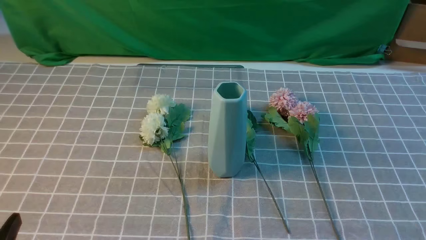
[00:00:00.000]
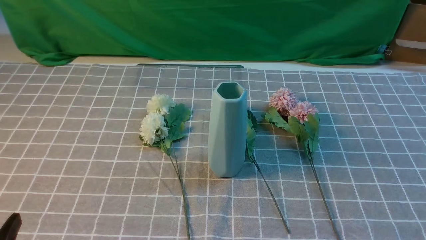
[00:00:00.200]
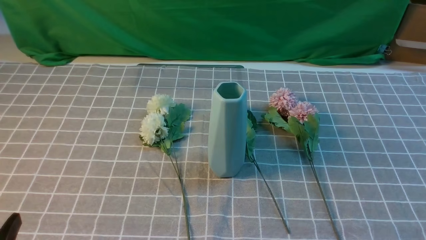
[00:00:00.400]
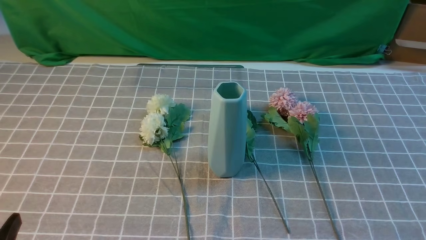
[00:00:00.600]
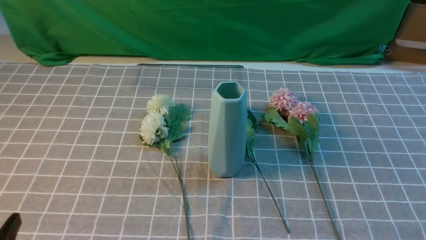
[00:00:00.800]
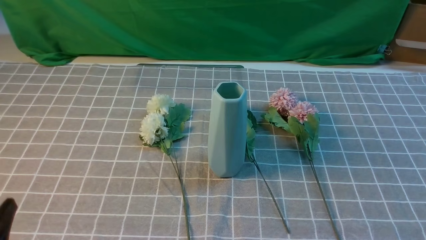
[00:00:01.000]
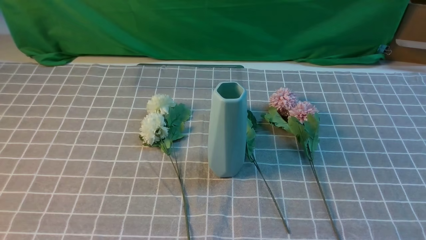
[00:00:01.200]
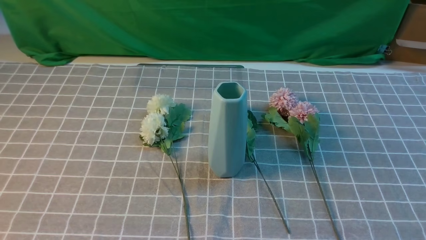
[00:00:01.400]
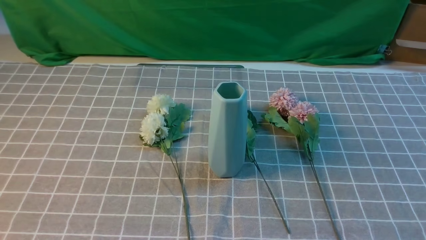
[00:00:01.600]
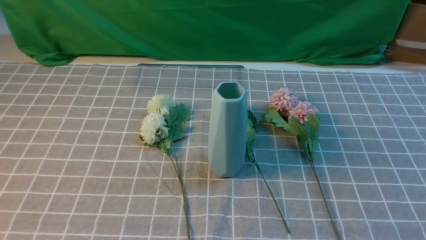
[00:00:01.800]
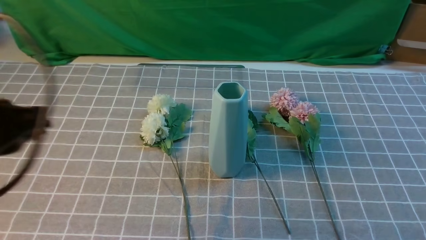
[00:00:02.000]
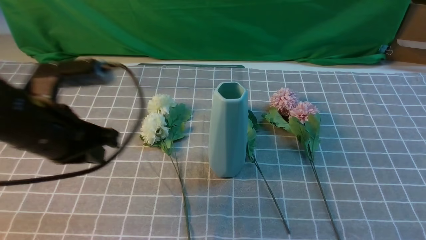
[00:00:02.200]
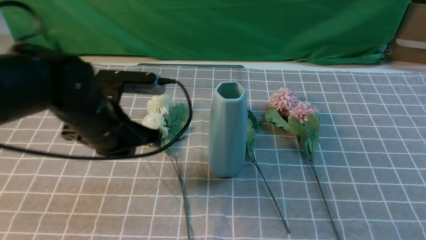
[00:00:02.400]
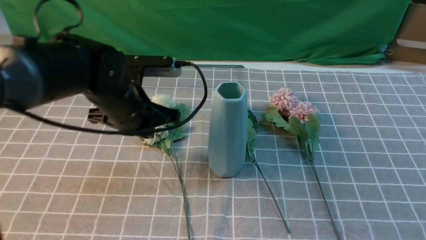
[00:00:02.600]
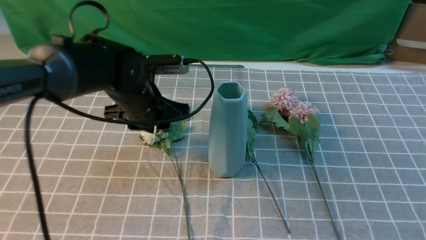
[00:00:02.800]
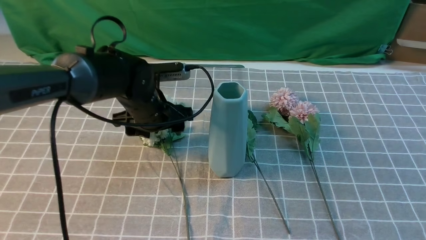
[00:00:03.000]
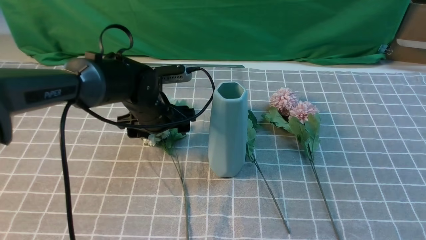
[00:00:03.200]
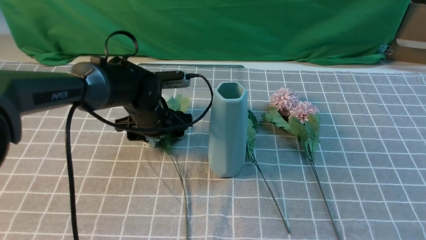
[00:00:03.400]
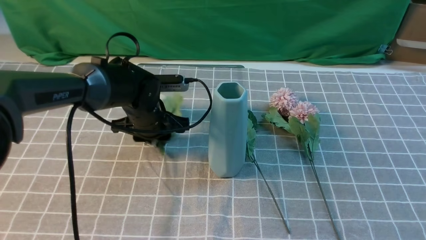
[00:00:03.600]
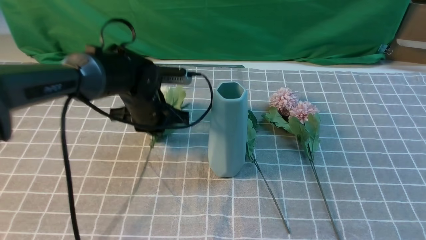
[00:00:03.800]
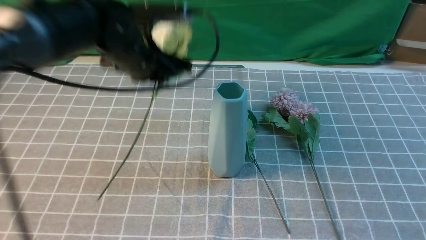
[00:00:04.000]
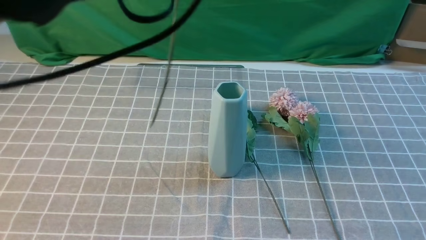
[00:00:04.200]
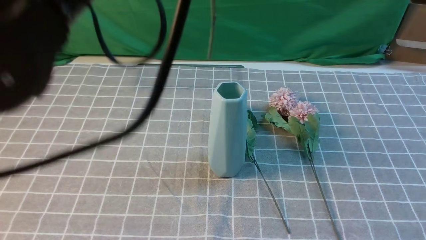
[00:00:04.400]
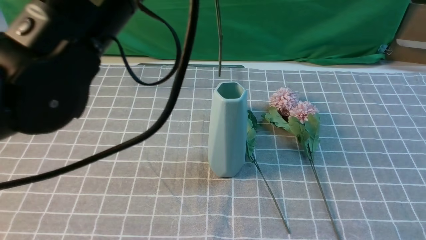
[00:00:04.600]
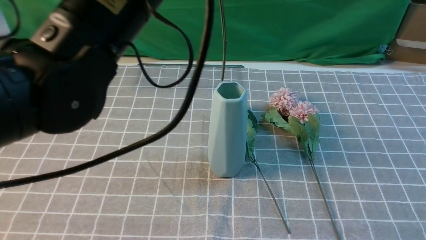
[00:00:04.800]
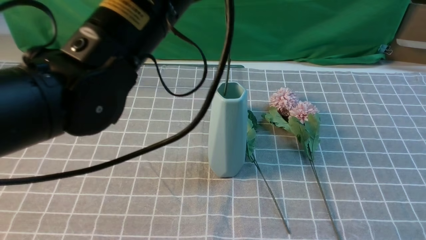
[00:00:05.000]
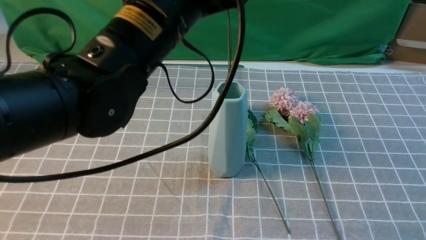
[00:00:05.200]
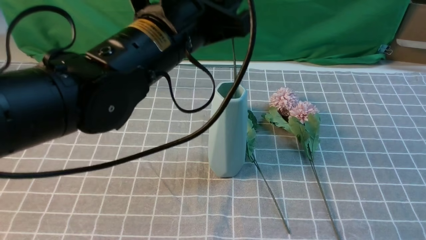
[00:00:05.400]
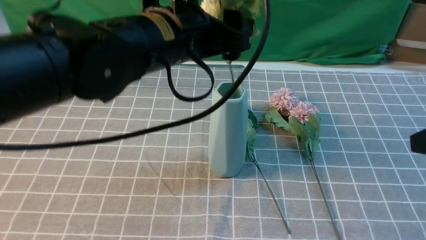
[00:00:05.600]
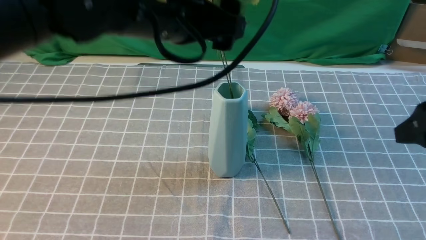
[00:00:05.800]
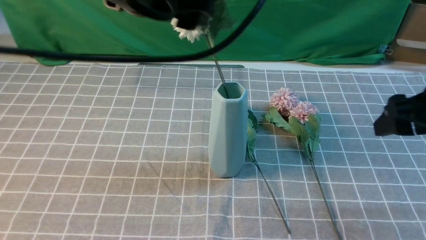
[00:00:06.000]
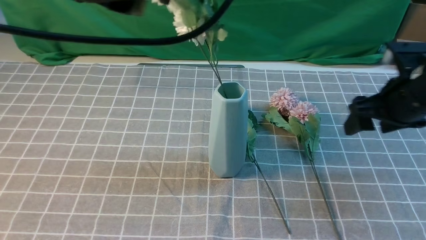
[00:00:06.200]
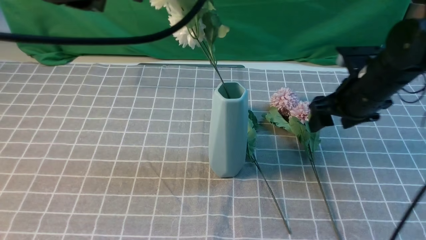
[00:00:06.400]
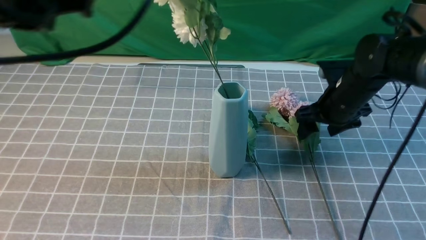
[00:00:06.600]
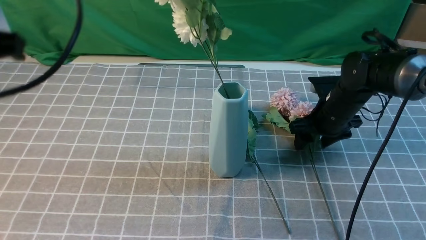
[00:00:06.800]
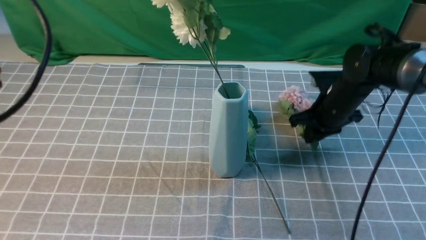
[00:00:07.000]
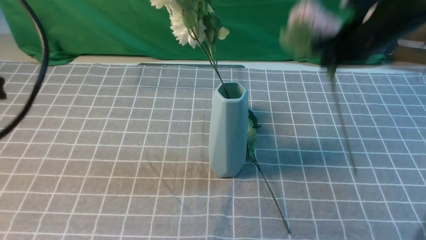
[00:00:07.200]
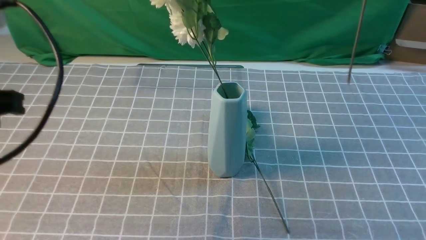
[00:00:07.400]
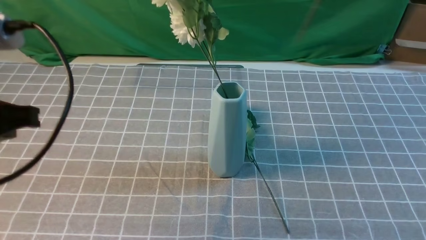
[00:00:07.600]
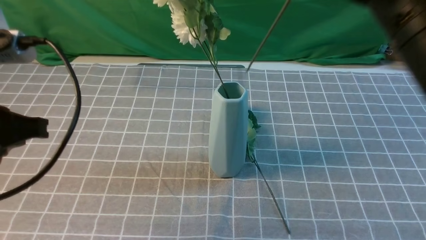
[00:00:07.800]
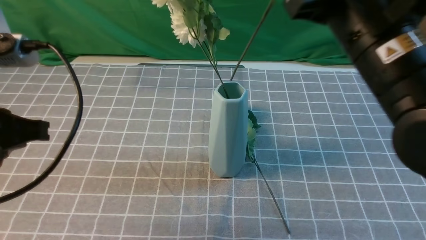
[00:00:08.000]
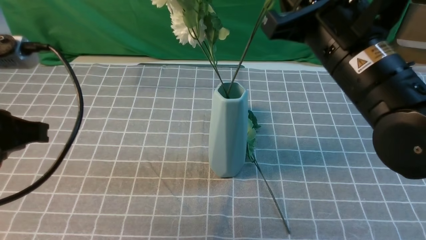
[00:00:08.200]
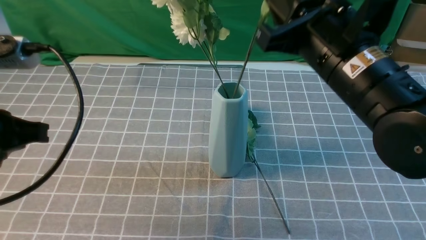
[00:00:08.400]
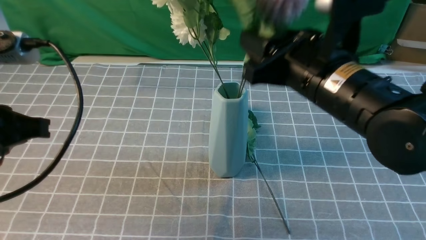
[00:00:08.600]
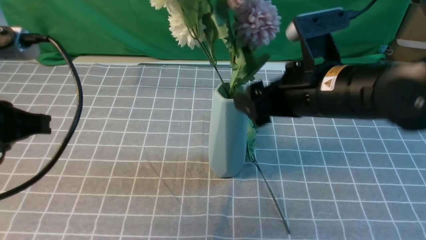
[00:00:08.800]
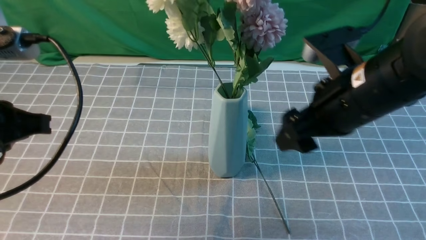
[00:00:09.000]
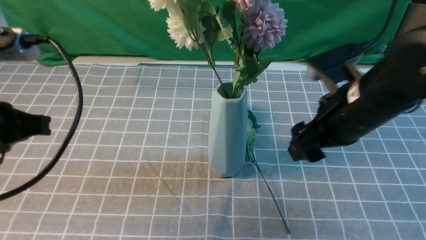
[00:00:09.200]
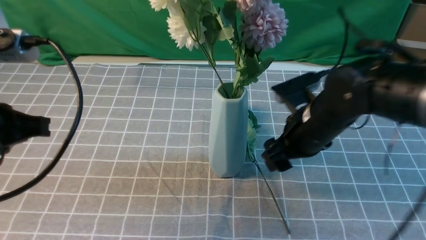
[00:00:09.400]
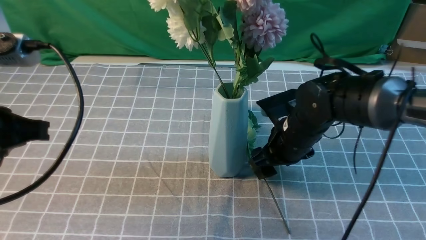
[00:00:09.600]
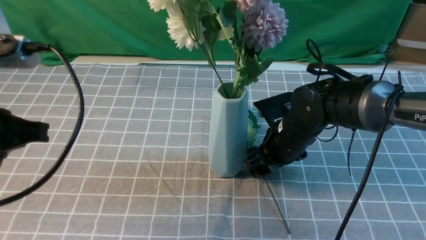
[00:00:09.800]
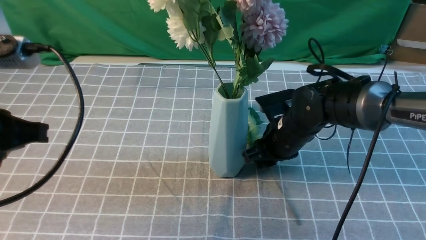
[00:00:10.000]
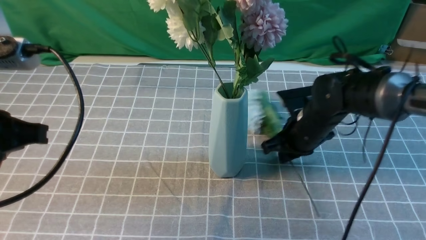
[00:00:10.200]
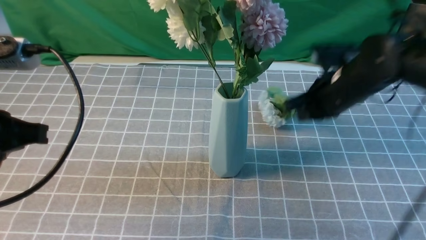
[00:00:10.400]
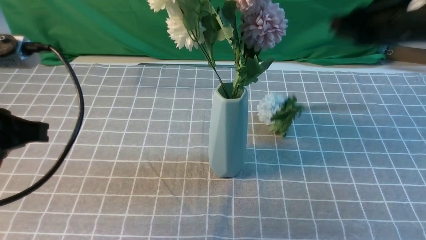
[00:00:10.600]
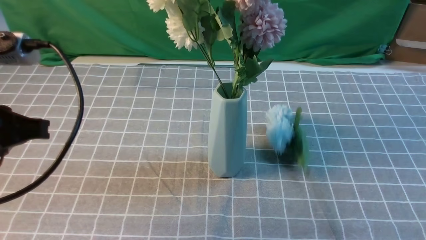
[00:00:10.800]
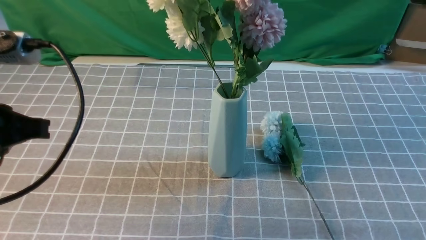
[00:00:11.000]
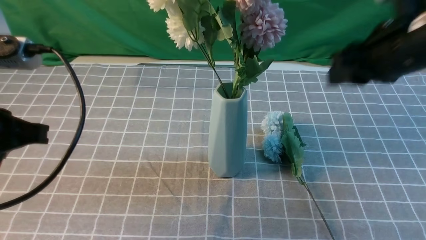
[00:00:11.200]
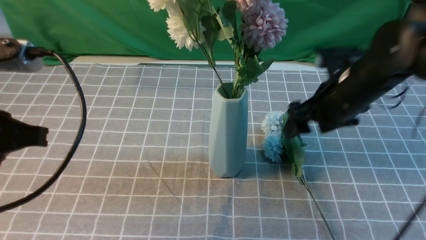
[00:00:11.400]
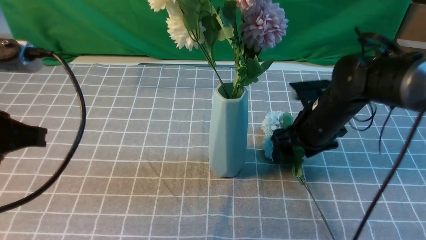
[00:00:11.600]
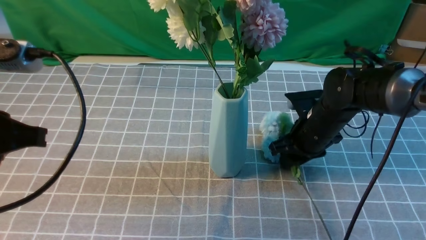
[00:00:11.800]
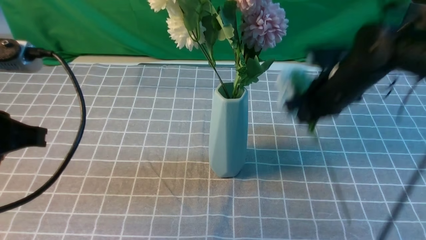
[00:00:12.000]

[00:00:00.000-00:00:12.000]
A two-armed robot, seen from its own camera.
Task of the whole recording: insert the flowers into the vase on the table with the grey tablecloth.
Step, 00:00:00.000 to 00:00:03.600: use the left arm to grab a bunch of fresh flowers.
Step, 00:00:03.800 to 00:00:06.000: use the left arm to insert the flowers into the vase.
Step, 00:00:06.200 to 00:00:06.800: use the right arm to grab a bunch of fresh flowers.
Step, 00:00:07.200 to 00:00:08.800: use the right arm to insert the flowers into the vase.
Step, 00:00:09.000 to 00:00:11.800: use the right arm to grab a bunch of fresh flowers.
00:00:01.600 to 00:00:03.000: The right gripper moves upward and forward, about 15 cm; the left gripper heads forward and to the right, covering some 35 cm, and opens.
00:00:03.000 to 00:00:04.400: The left gripper travels upward and backward by approximately 30 cm, and closes up.
00:00:04.400 to 00:00:06.000: The left gripper moves about 10 cm downward and comes back, and opens, while the right gripper is displaced forward by roughly 15 cm, and opens.
00:00:06.000 to 00:00:07.600: The right gripper shifts about 20 cm upward and to the left, and closes its fingers, while the left gripper goes roughly 20 cm to the left, backward and downward, and closes up.
00:00:07.600 to 00:00:09.000: The right gripper moves downward, about 15 cm, and opens up.
00:00:09.000 to 00:00:10.400: The right gripper heads forward, covering roughly 10 cm, travels downward and back again, approximately 15 cm each way, and closes.
00:00:10.400 to 00:00:12.000: The right gripper swings up and down, about 25 cm each way, with 2 reversals, and opens and closes again.

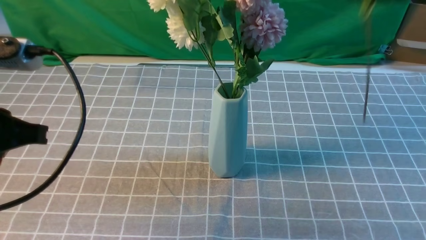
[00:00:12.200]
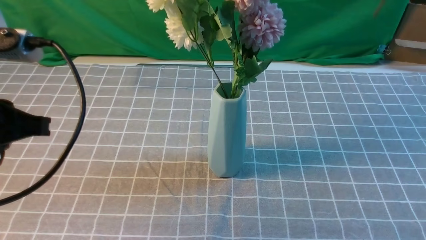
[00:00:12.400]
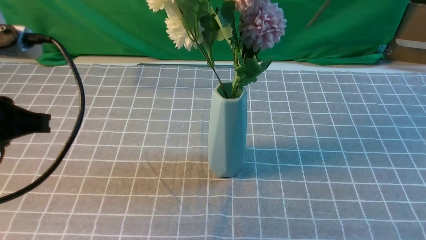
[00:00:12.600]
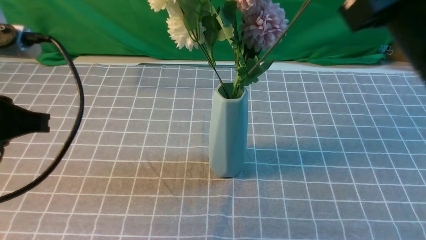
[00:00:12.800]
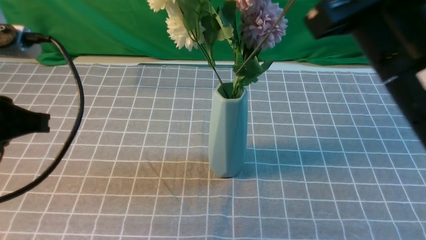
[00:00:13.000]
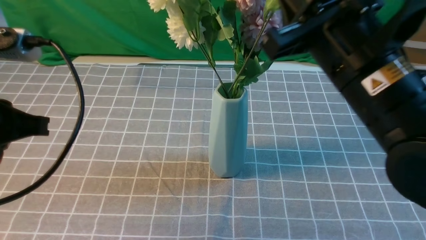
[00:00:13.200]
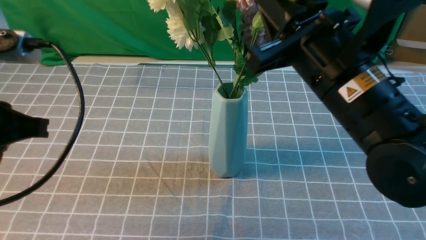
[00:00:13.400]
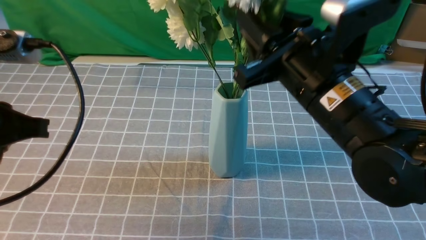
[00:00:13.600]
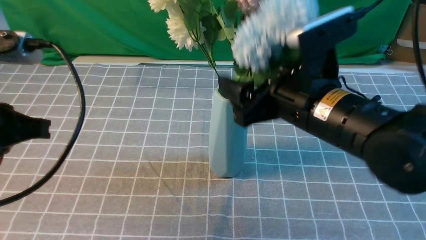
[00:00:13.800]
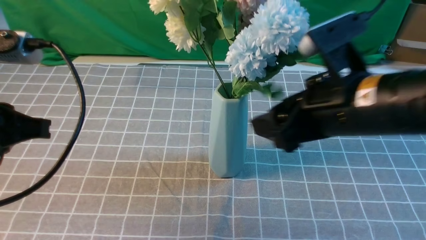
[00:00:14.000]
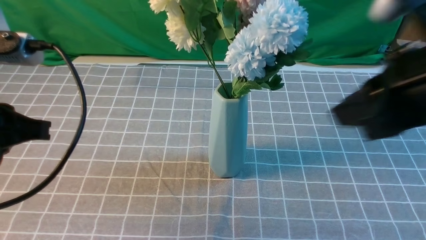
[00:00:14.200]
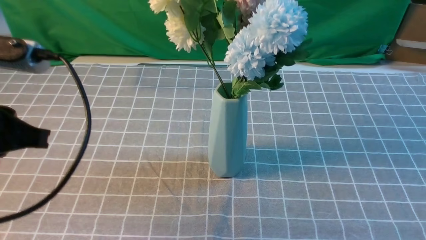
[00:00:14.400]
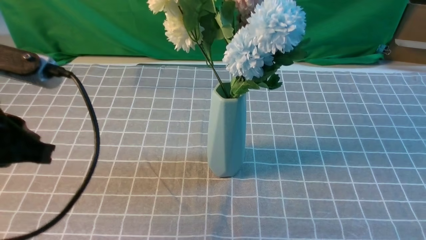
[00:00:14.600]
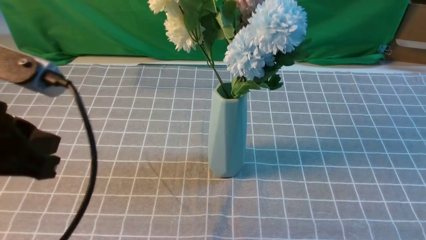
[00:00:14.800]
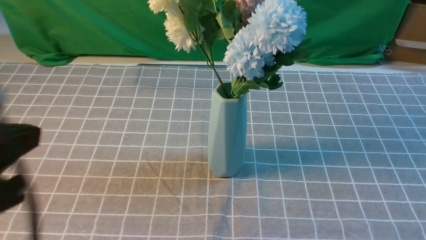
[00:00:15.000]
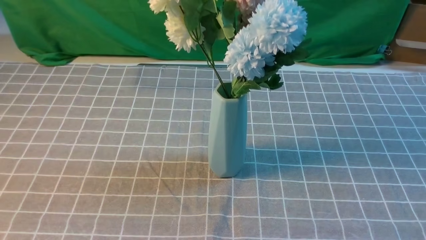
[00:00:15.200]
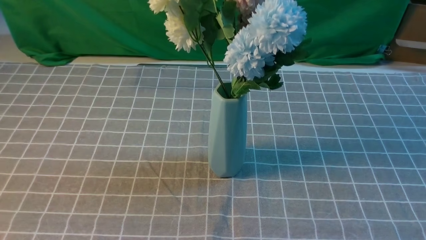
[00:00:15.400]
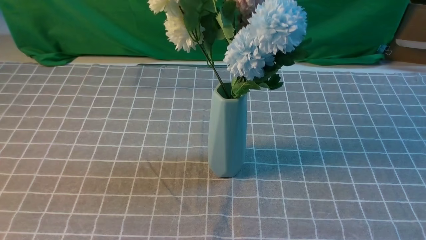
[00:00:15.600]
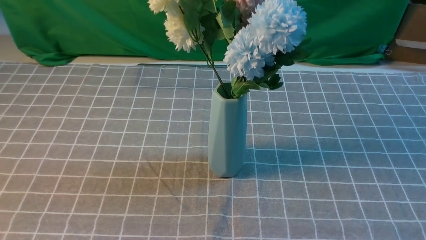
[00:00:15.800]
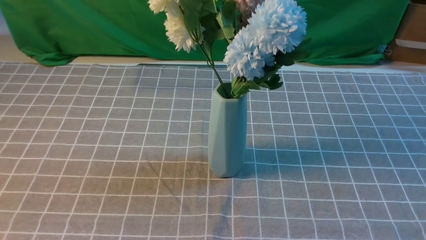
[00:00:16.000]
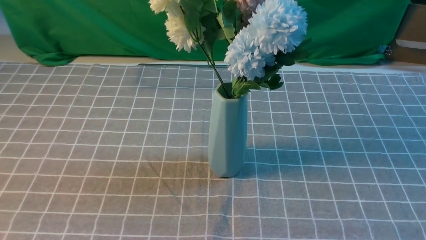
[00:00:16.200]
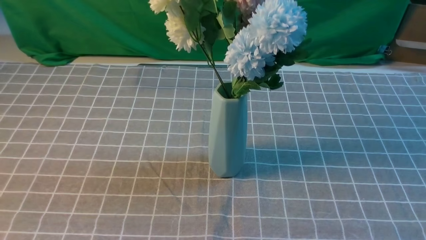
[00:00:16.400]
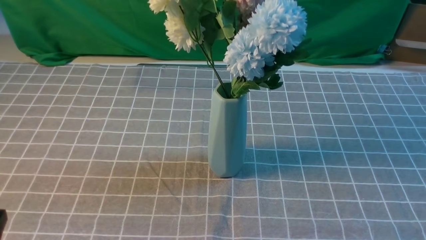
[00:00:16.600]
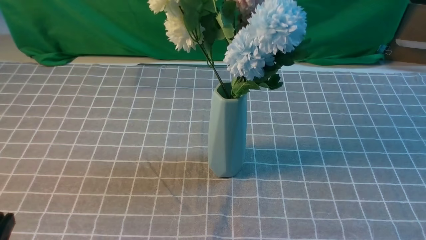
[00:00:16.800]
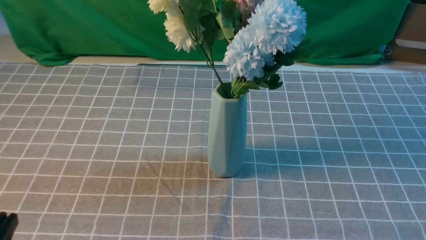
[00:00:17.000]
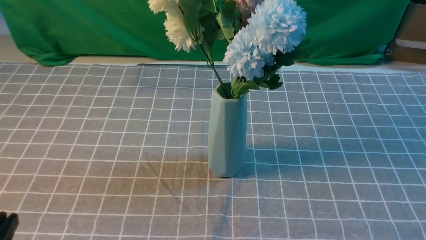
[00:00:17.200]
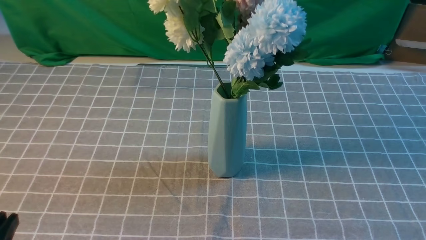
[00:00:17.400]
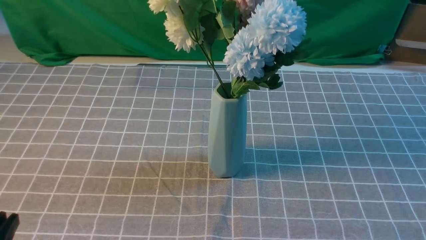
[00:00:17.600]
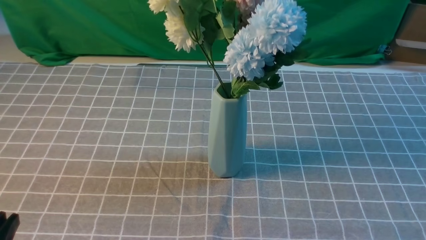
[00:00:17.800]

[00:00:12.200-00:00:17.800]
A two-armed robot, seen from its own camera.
Task of the whole recording: insert the flowers into the vase on the table with the grey tablecloth.
Step, 00:00:12.200 to 00:00:14.000: use the right arm to insert the flowers into the vase.
00:00:12.200 to 00:00:13.600: The right gripper shifts about 20 cm downward, to the left and backward, and opens up.
00:00:13.600 to 00:00:15.000: The right gripper heads backward and to the right, covering some 30 cm, and closes. Meanwhile the left gripper heads backward, covering approximately 10 cm.
00:00:15.000 to 00:00:16.400: The left gripper shifts about 10 cm downward.
